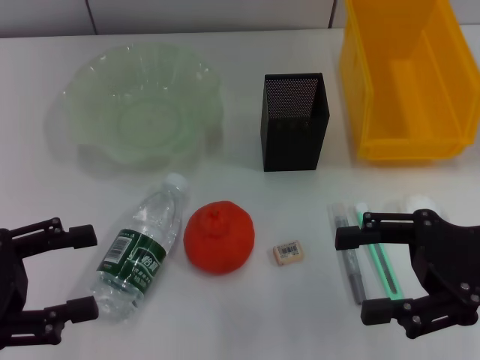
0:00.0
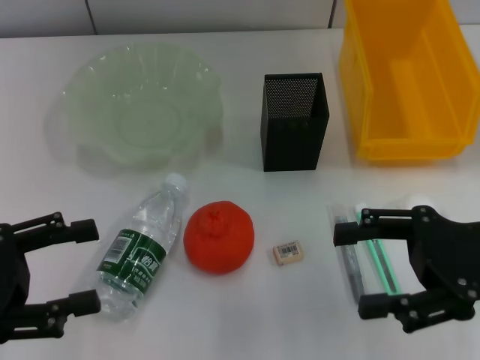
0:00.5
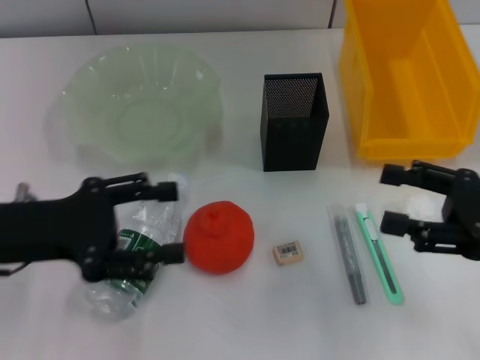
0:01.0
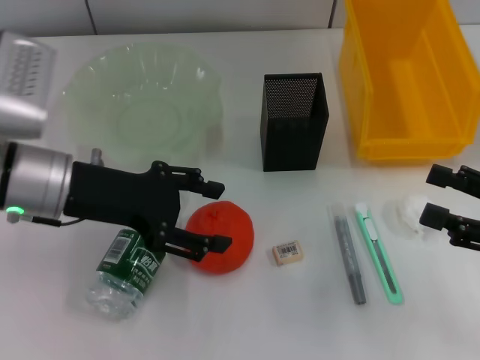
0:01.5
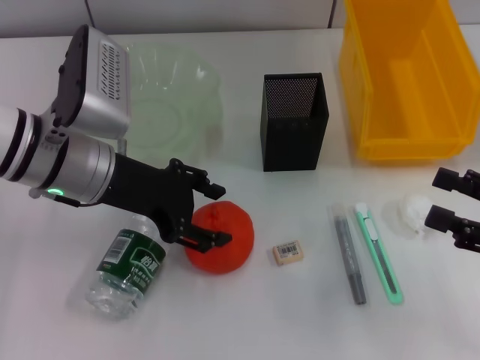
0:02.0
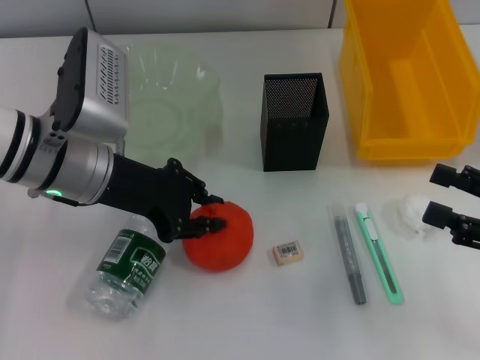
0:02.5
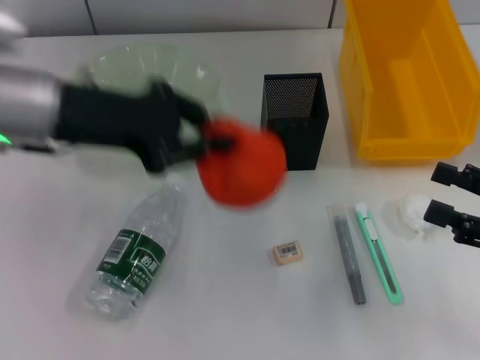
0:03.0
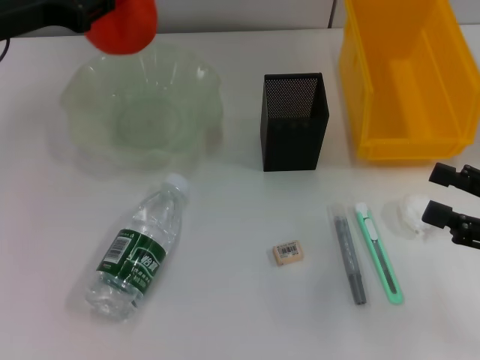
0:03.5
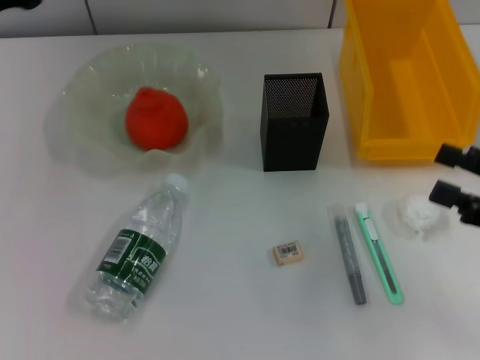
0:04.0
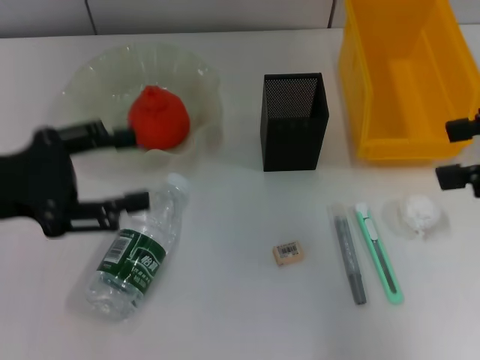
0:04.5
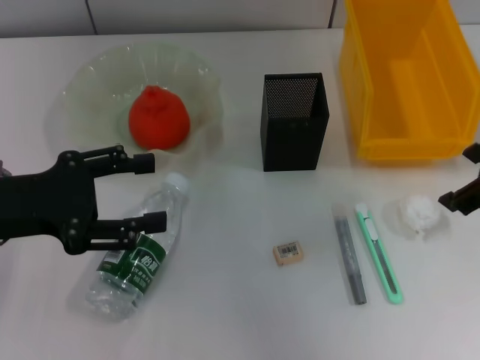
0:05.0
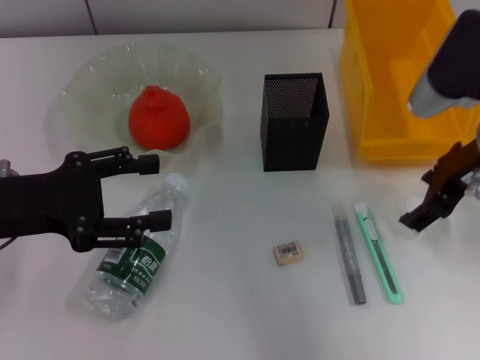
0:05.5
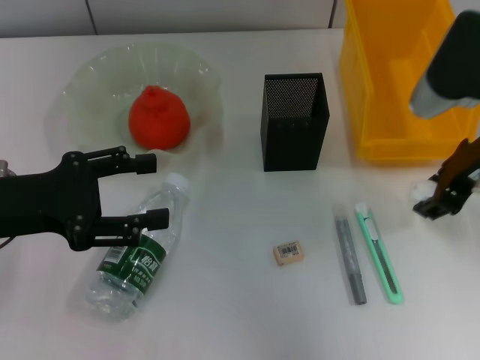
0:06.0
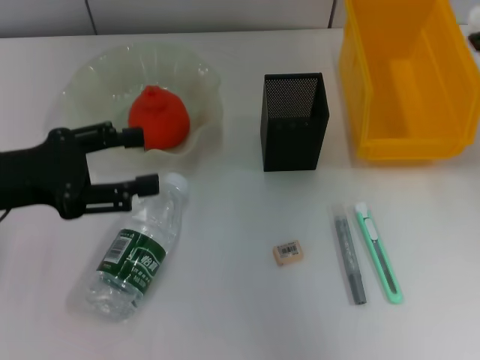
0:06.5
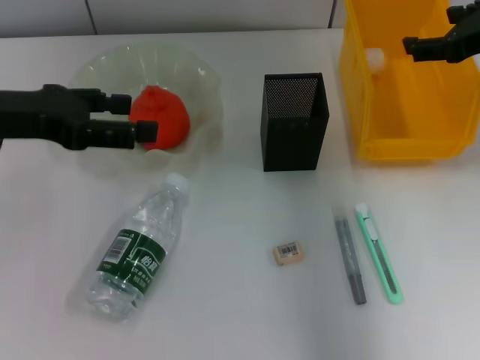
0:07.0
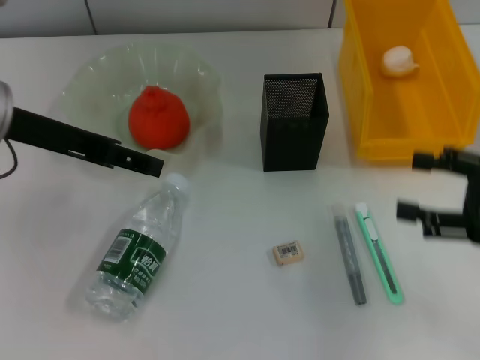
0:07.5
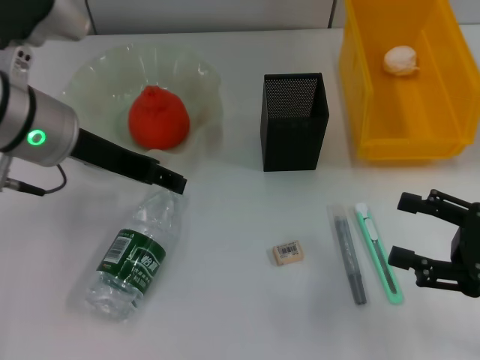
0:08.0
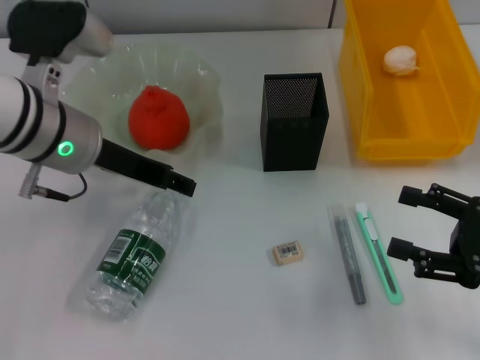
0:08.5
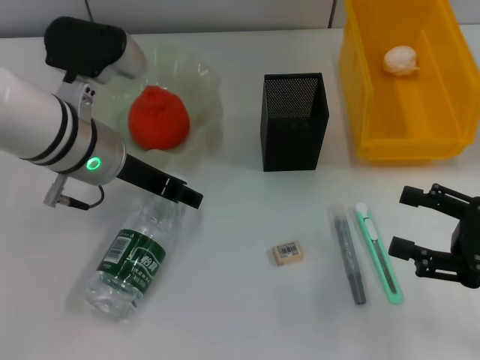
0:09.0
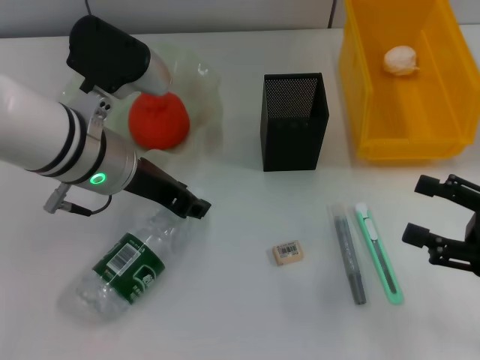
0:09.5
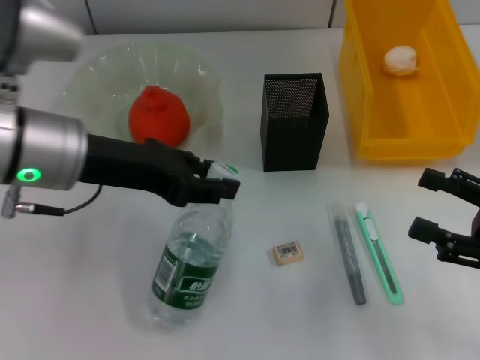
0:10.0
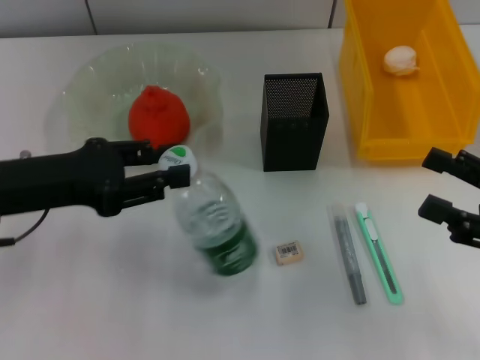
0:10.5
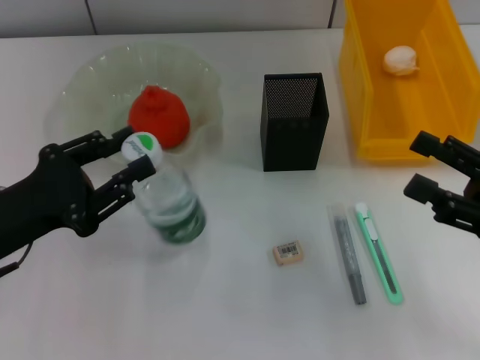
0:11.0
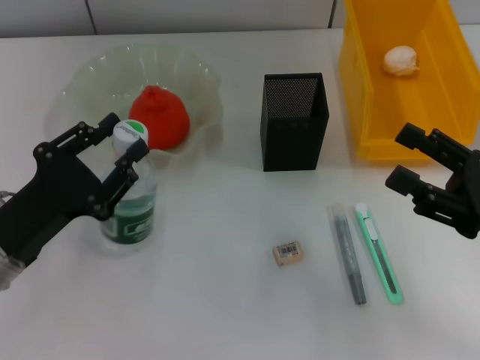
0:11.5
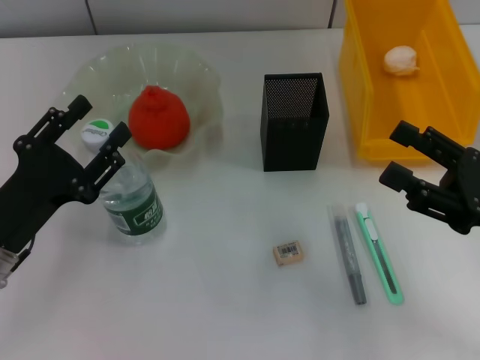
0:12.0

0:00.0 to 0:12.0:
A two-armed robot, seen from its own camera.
Step, 0:00.0 to 0:02.5: Grab the orange with the left hand.
Step, 0:03.0 to 0:03.5: Place the orange into the fruit bowl with the left hand.
Step, 0:04.0 to 0:05.5: Grab the paper ball with the right hand.
Step, 0:06.0 to 0:06.5: Place the paper ball into the trash can with the right hand.
Step, 0:07.0 to 0:09.0: Grab the water bottle with the left hand.
Step, 0:10.0 to 0:11.5: Place the water bottle on the table with the left hand.
0:00.0 to 0:02.0: The right gripper travels to the right by roughly 5 cm. Meanwhile the left gripper travels to the right and forward by approximately 20 cm.
0:02.0 to 0:04.0: The left gripper is displaced to the left and upward by roughly 15 cm, and closes and opens again.
0:04.0 to 0:06.0: The right gripper goes roughly 20 cm to the left, forward and upward; the left gripper goes some 10 cm backward and downward.
0:06.0 to 0:08.0: The left gripper moves to the right and forward, roughly 10 cm; the right gripper is displaced backward, downward and to the right by approximately 20 cm.
0:08.0 to 0:10.0: The left gripper closes.
0:10.0 to 0:12.0: The left gripper goes roughly 15 cm downward, backward and to the left.

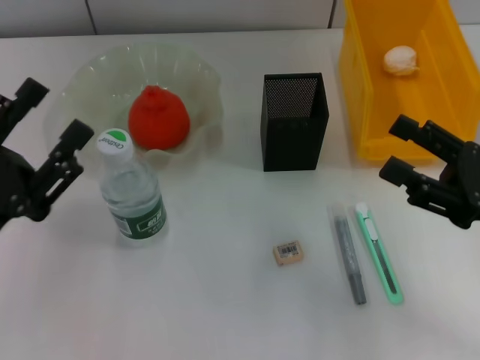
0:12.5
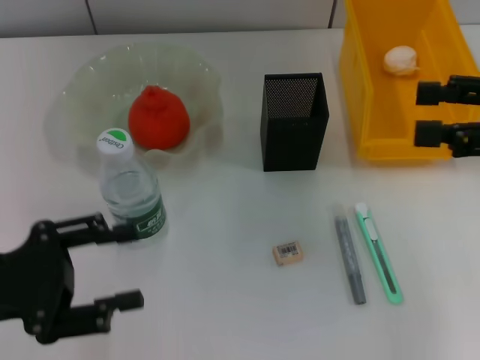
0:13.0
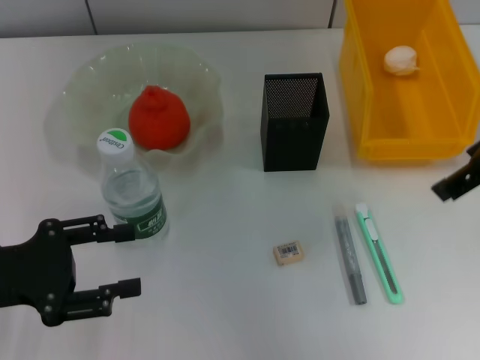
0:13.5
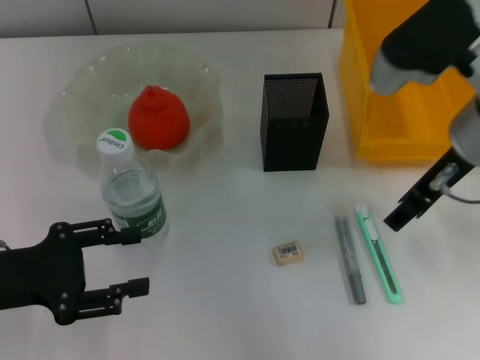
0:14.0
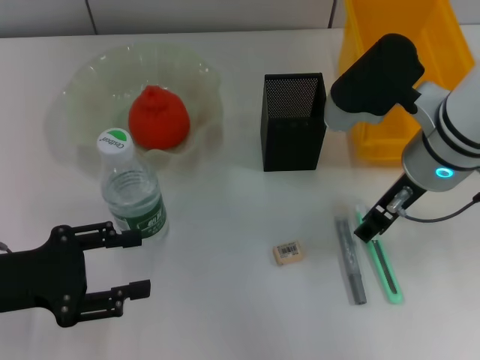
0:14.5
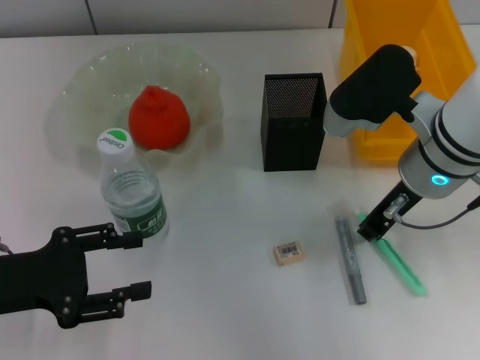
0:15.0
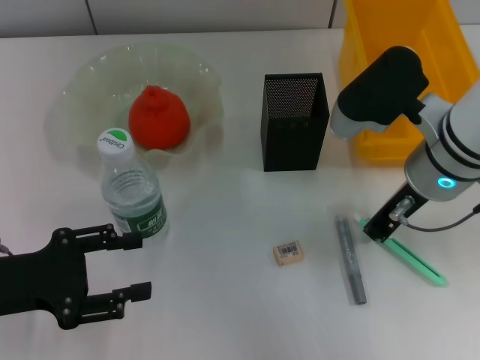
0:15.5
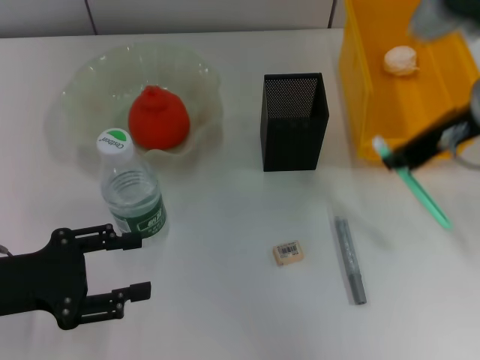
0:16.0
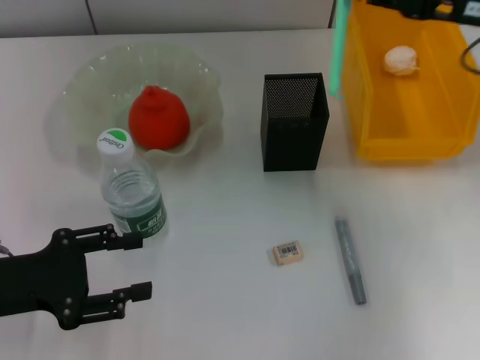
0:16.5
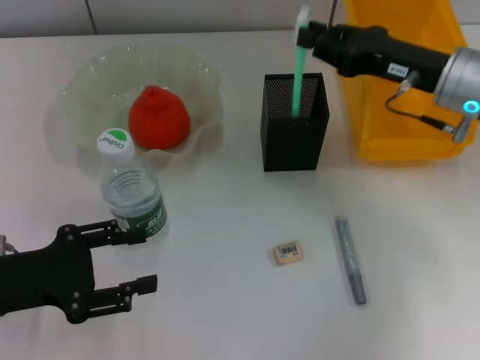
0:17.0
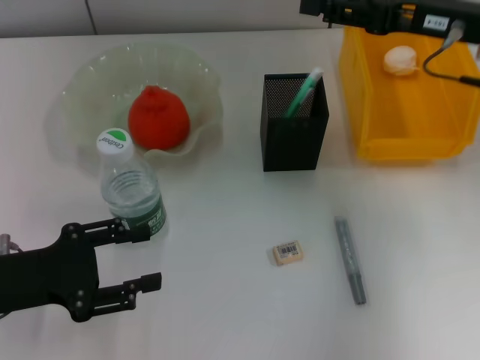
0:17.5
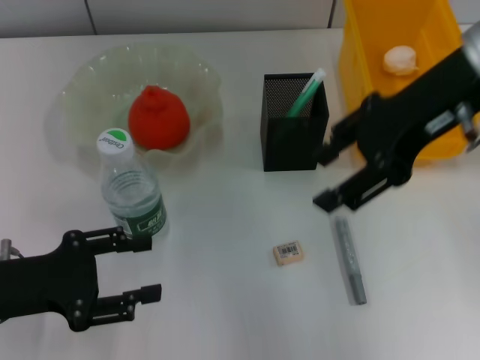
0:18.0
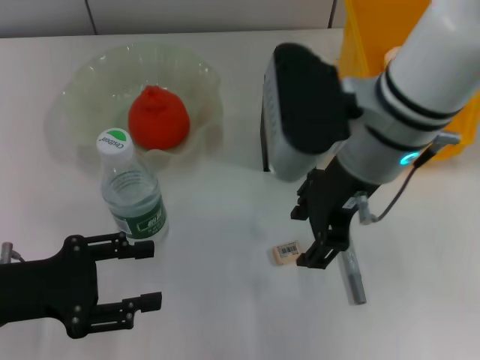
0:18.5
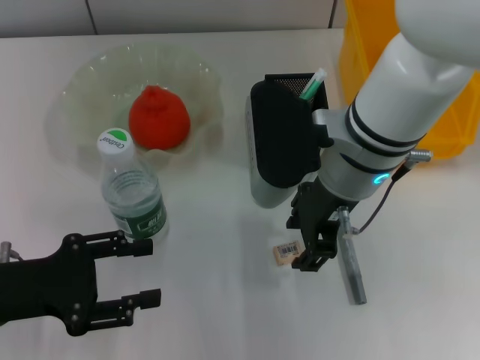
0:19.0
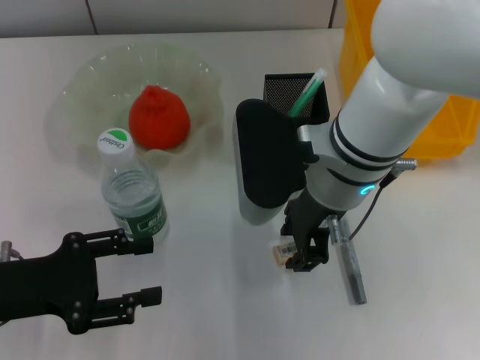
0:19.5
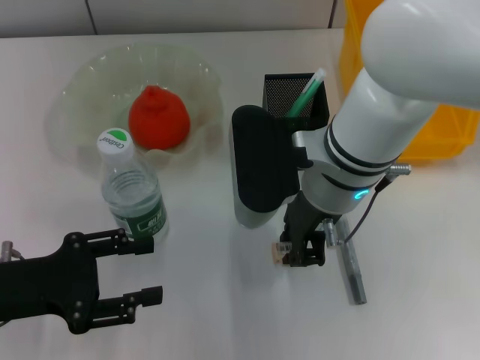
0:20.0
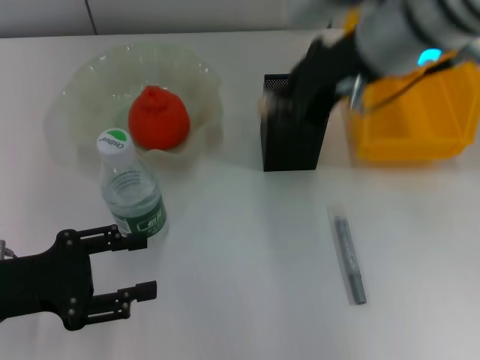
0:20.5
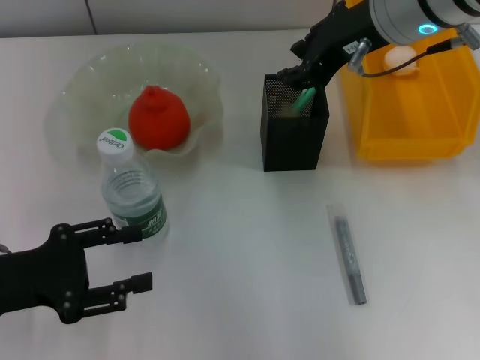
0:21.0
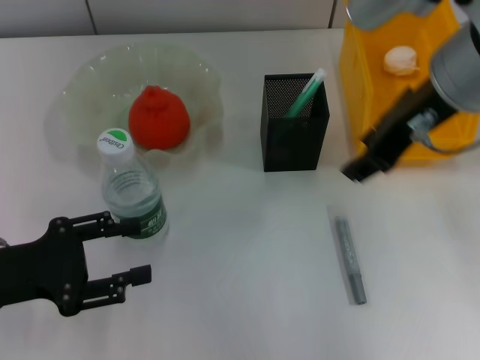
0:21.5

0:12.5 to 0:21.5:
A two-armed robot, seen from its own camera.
Step, 0:12.5 to 0:15.0: Grab the blue utility knife with the right hand.
Step, 0:15.5 to 0:17.0: Place the blue utility knife into the pen holder with the right hand.
Step, 0:17.5 to 0:20.0: Grab the eraser with the right hand.
Step, 0:20.5 to 0:21.0: Put the eraser into the pen holder with the right hand.
0:12.5 to 0:14.5: The right gripper moves to the left, forward and upward, approximately 20 cm.
0:14.5 to 0:17.0: The right gripper travels to the right by some 5 cm, and closes up.
0:17.0 to 0:19.5: The right gripper shifts approximately 15 cm to the left.
0:19.5 to 0:21.5: The right gripper moves upward and to the right, about 15 cm.

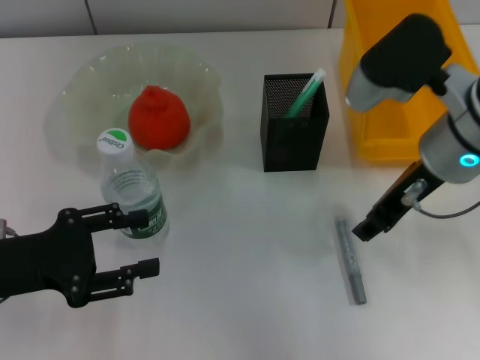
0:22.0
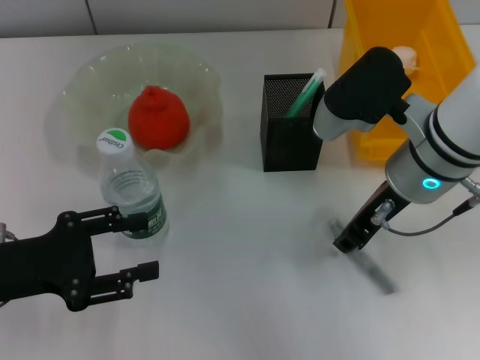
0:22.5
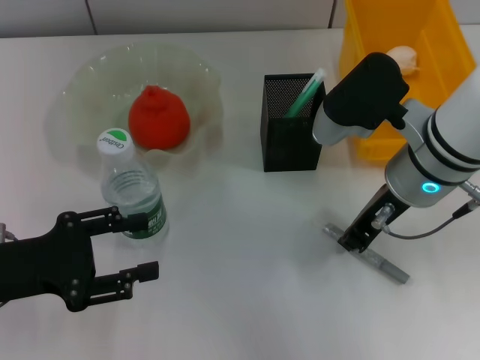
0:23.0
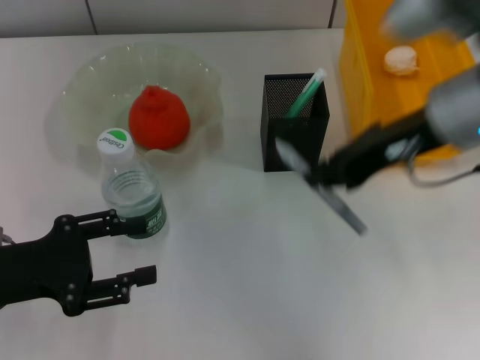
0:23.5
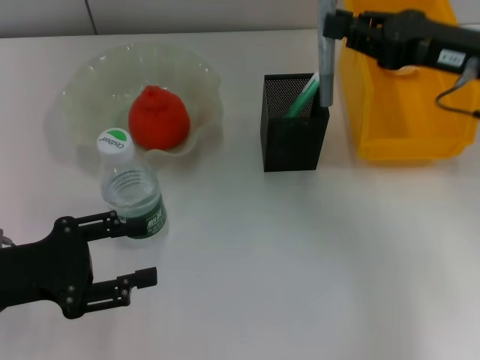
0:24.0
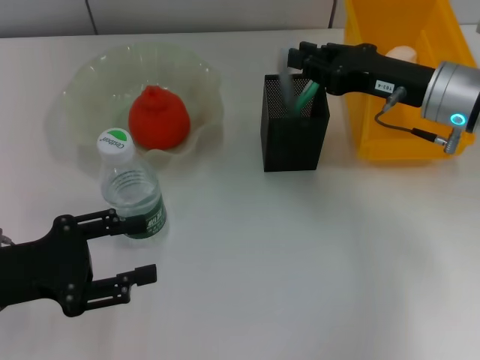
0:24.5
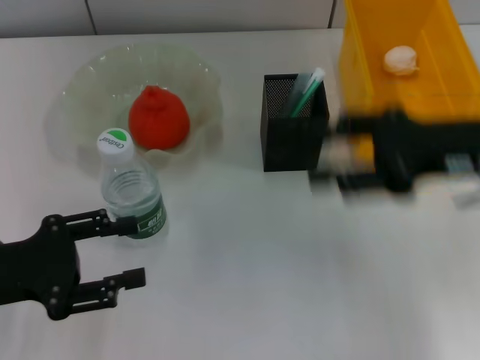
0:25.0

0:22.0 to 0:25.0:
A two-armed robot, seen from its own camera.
Step, 0:22.0 to 0:23.0: Grab the gray glue with the right hand.
Step, 0:23.5 to 0:24.5: Place the gray glue into the pen holder with the right hand.
0:22.0 to 0:23.5: The right gripper heads upward, covering about 5 cm, and closes up.
0:23.5 to 0:25.0: The right gripper goes some 10 cm downward and to the right, and opens up.

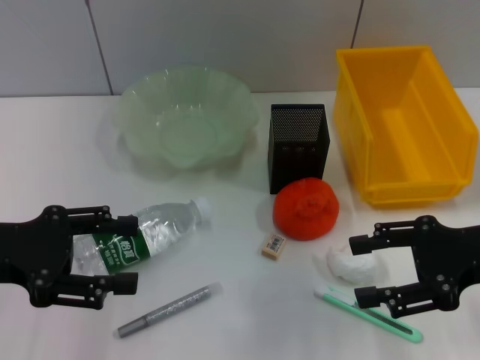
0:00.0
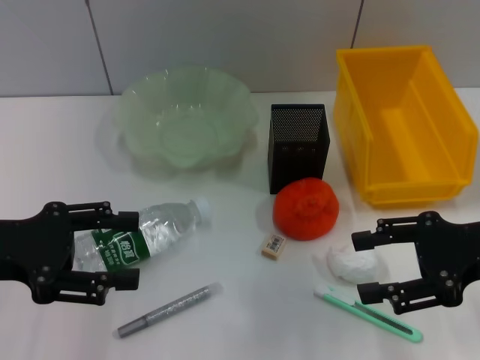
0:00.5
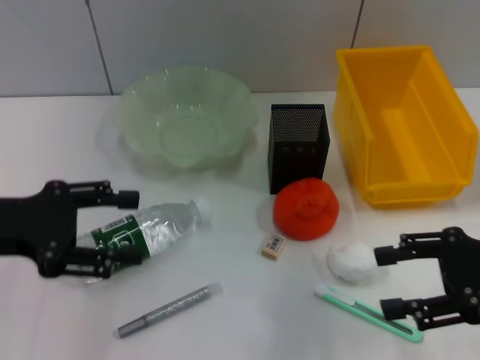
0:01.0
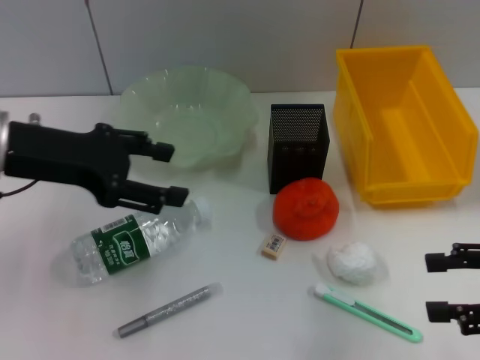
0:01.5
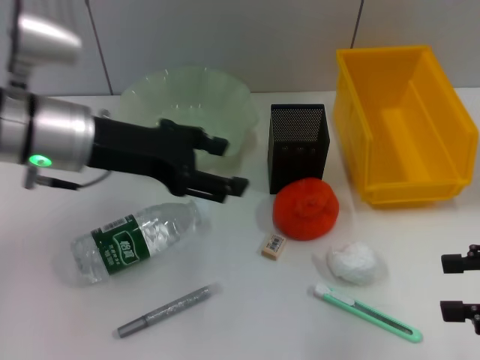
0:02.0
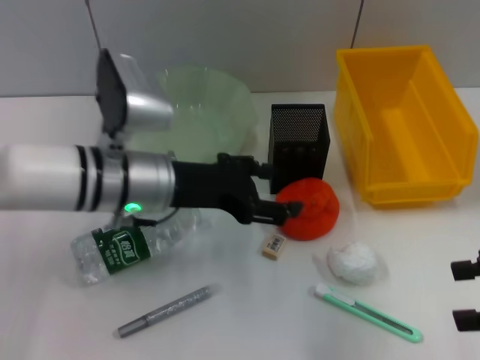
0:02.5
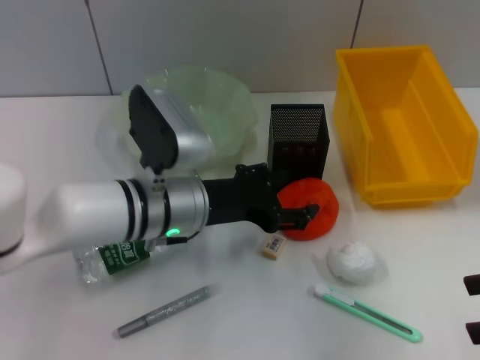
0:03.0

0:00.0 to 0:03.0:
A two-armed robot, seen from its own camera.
0:00.0 to 0:01.5: The left gripper shifts some 10 cm forward, upward and to the right. The right gripper shifts some 5 cm to the right.
0:01.5 to 0:03.0: The left gripper moves to the right and downward, roughly 20 cm.
